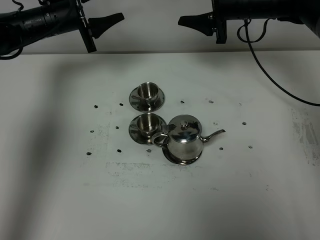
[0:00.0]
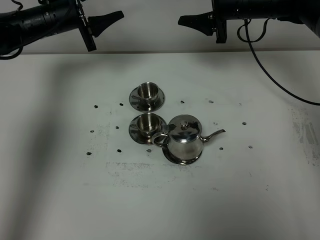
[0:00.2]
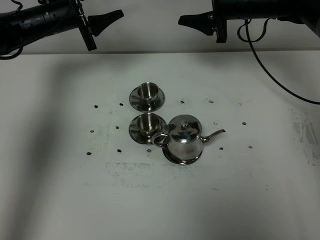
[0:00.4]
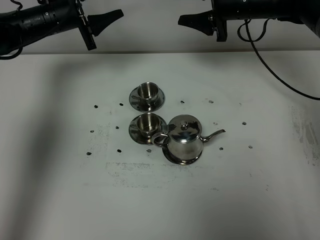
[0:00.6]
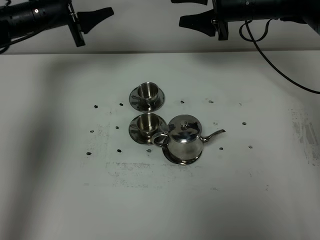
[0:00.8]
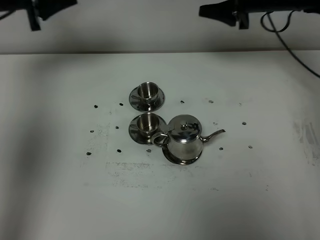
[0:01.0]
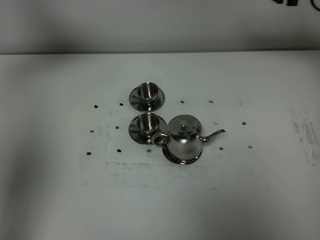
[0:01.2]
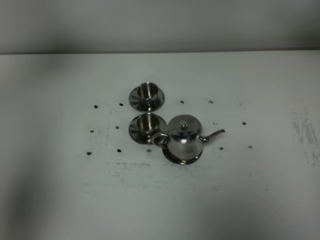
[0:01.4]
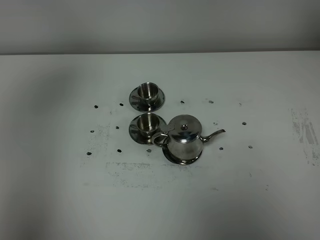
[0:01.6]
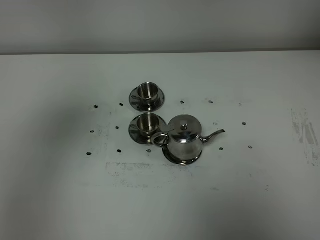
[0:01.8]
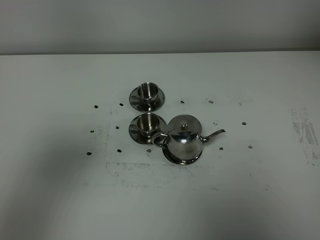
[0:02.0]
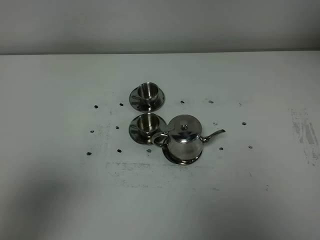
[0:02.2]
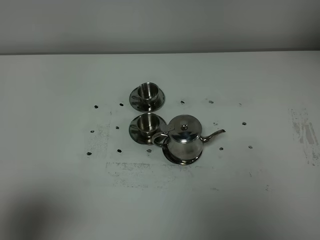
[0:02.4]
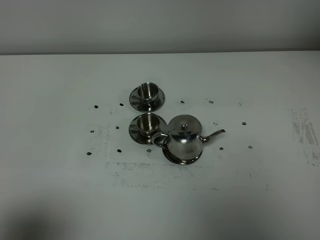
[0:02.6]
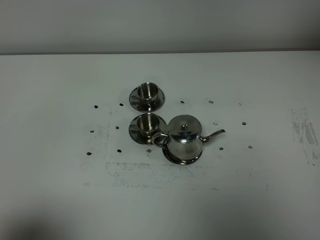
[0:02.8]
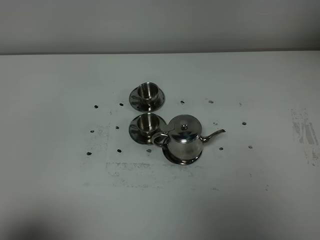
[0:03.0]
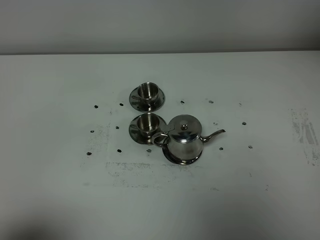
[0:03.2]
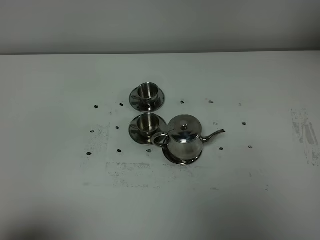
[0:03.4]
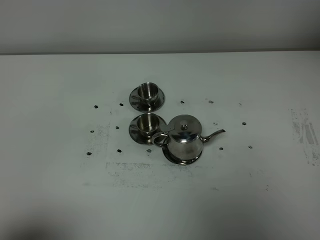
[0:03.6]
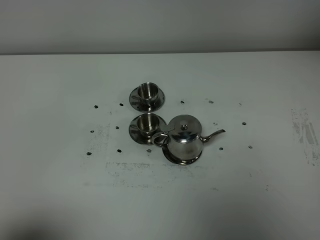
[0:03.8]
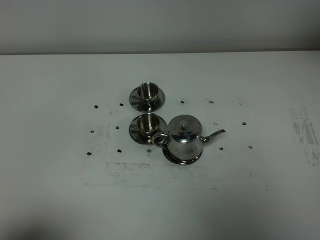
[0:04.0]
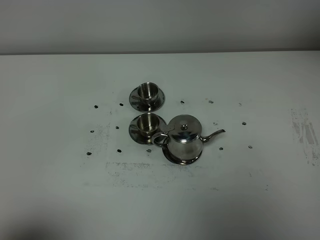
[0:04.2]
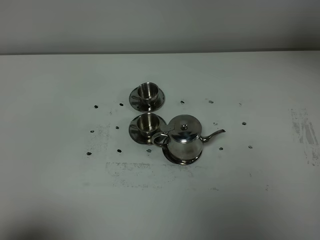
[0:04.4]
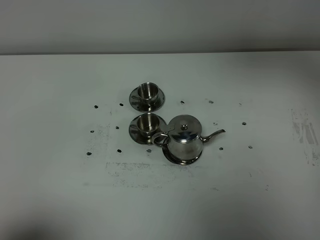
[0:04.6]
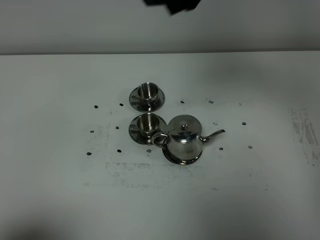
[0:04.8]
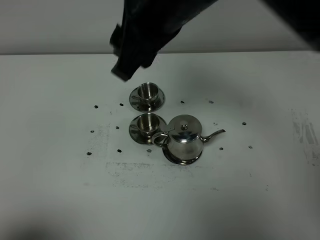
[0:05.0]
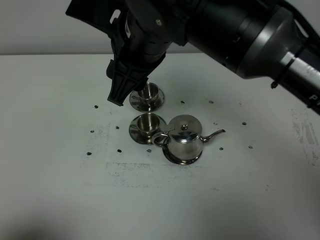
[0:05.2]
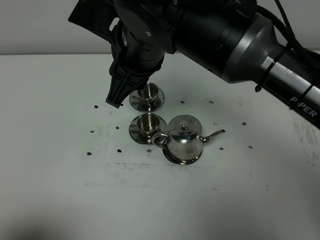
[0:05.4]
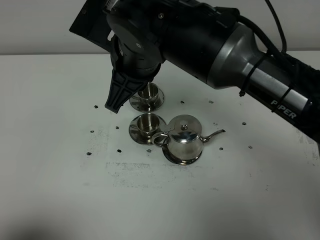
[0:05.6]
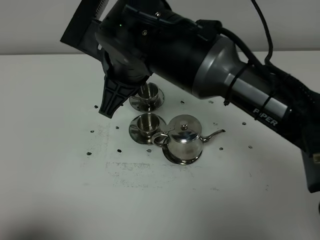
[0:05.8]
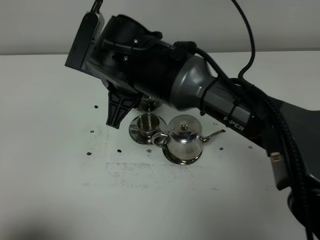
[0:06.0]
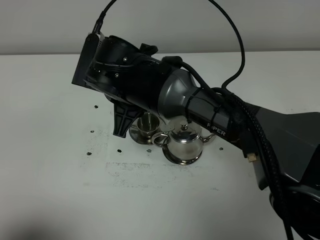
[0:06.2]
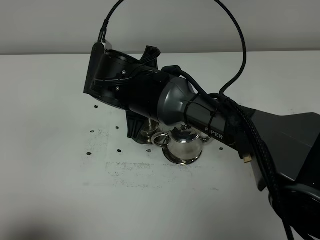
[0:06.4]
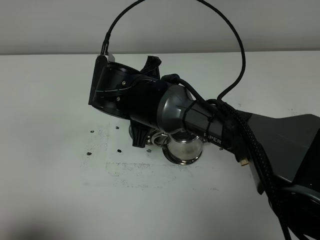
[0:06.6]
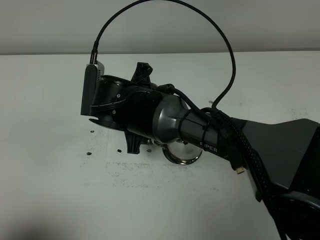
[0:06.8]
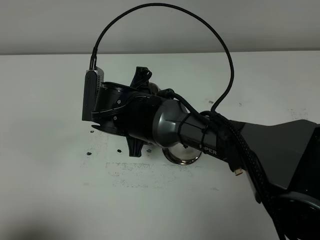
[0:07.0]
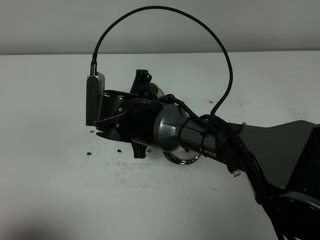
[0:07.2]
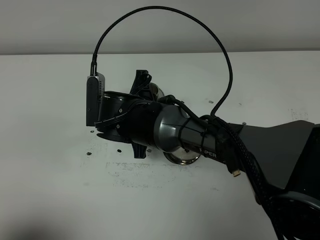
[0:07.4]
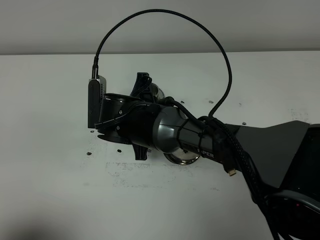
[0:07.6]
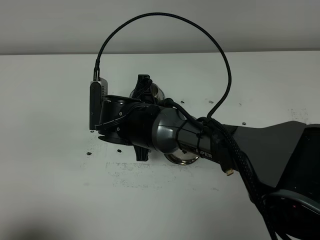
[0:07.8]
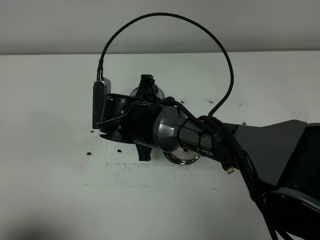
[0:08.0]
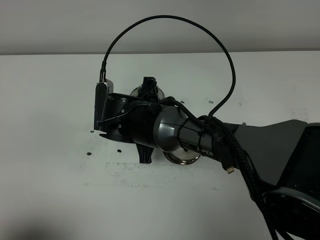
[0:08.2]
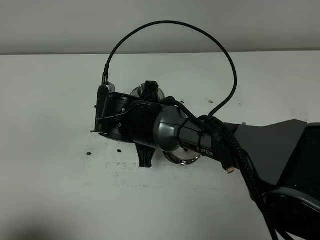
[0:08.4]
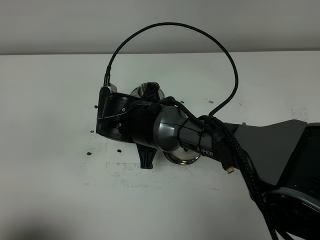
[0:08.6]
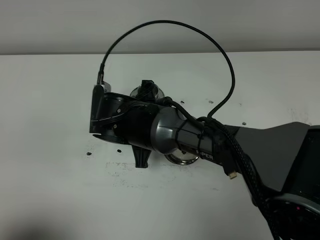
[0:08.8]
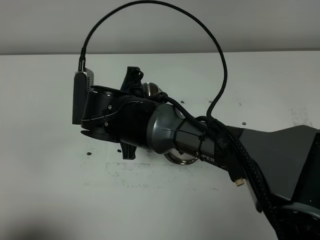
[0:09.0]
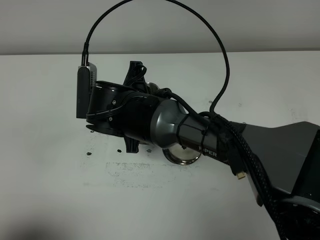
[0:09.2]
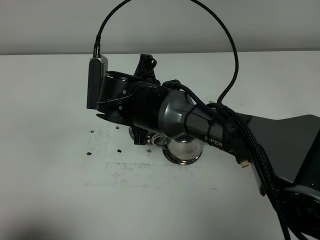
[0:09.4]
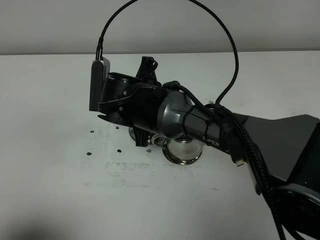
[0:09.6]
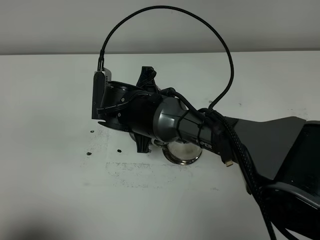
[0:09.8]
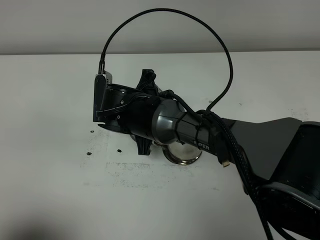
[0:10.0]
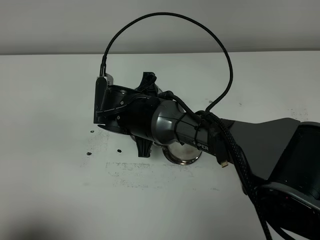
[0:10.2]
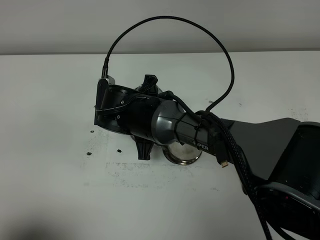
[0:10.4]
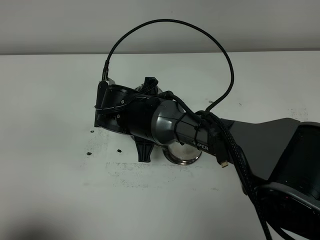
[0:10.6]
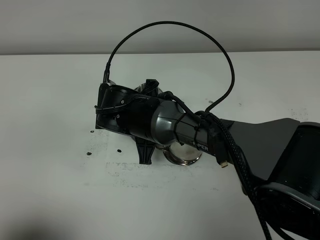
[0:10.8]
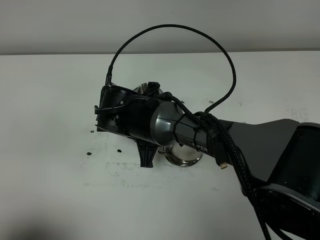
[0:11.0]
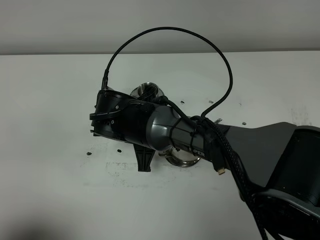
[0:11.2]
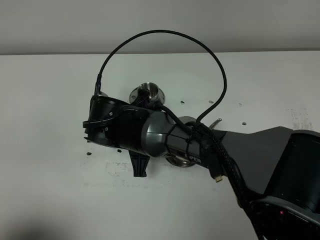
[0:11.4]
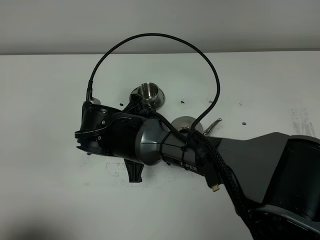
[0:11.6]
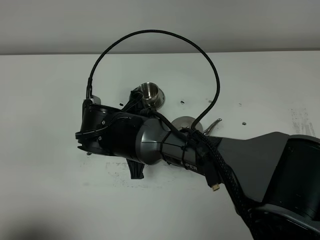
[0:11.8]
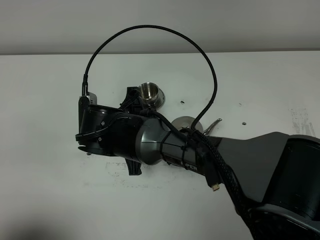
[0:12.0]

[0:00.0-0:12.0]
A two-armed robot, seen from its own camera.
Task of the whole recording: grasp the stainless steel teapot and pour the tea into the two stainless steel teacups one by one, put the stainless steel teapot back in its original place.
0:00.0 to 0:01.6: The right gripper goes approximately 30 cm upward, to the right and backward, while the left gripper shifts about 40 cm backward and upward.
0:01.6 to 0:03.0: The left gripper shifts roughly 30 cm backward and downward.
0:04.4 to 0:06.0: The right gripper moves to the left and downward, approximately 40 cm, and closes.
0:06.0 to 0:07.6: The right gripper goes some 10 cm downward.
0:07.6 to 0:09.0: The grippers move only a little.
0:09.0 to 0:10.4: The right gripper changes place by approximately 5 cm.

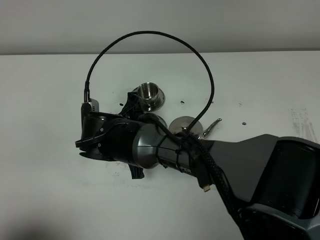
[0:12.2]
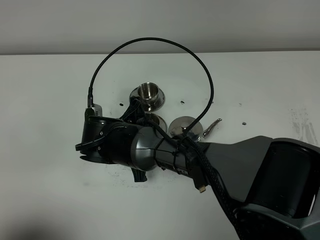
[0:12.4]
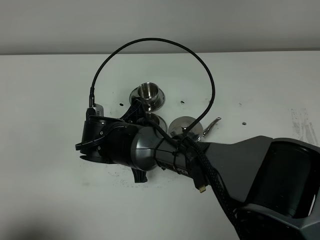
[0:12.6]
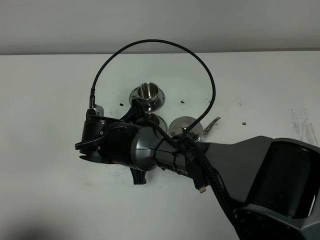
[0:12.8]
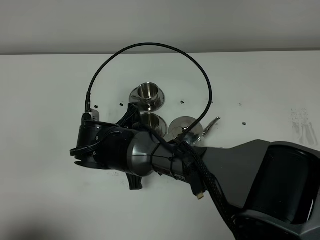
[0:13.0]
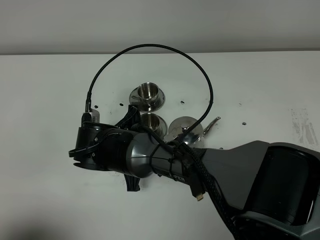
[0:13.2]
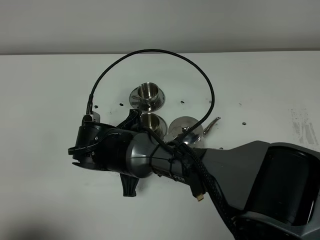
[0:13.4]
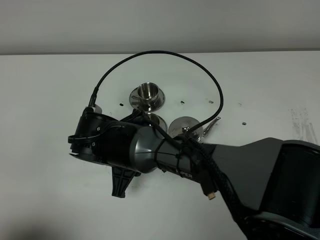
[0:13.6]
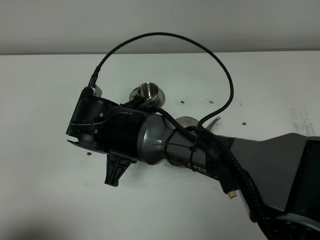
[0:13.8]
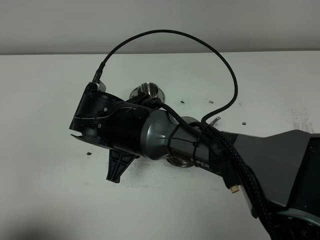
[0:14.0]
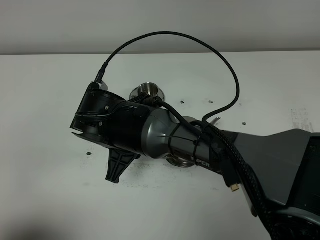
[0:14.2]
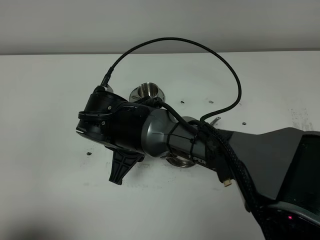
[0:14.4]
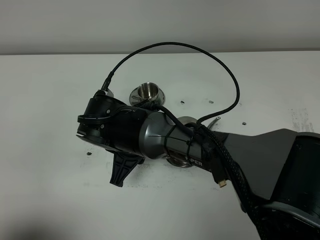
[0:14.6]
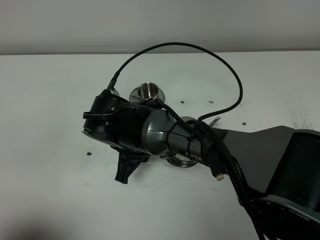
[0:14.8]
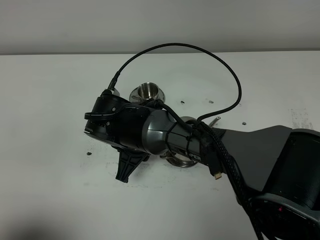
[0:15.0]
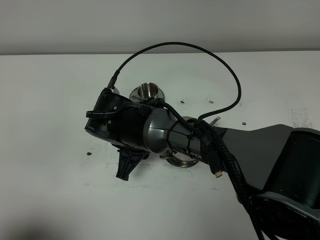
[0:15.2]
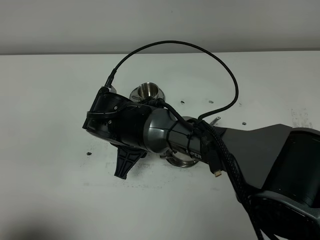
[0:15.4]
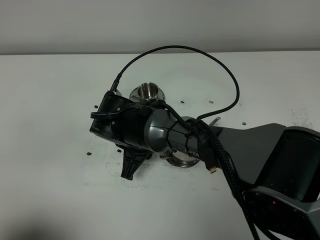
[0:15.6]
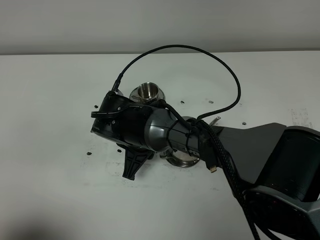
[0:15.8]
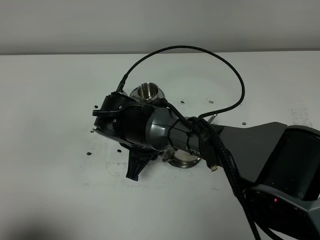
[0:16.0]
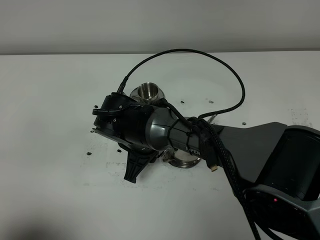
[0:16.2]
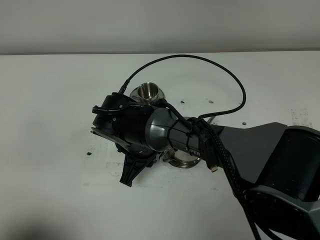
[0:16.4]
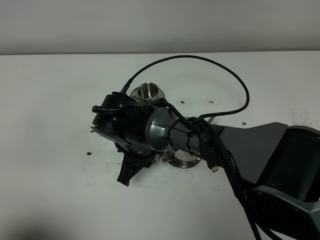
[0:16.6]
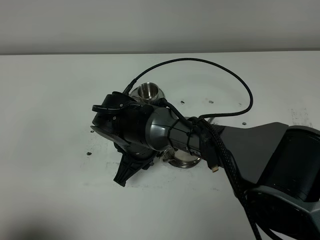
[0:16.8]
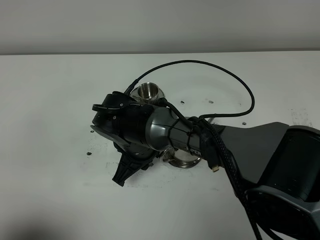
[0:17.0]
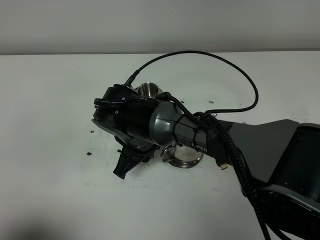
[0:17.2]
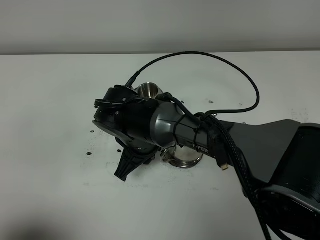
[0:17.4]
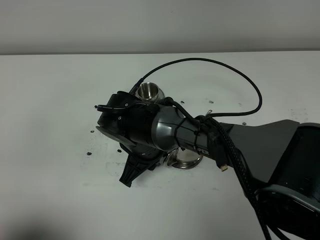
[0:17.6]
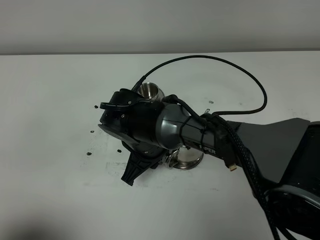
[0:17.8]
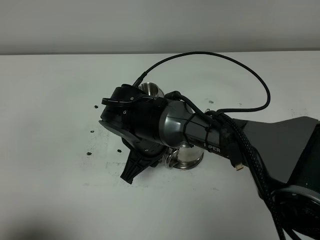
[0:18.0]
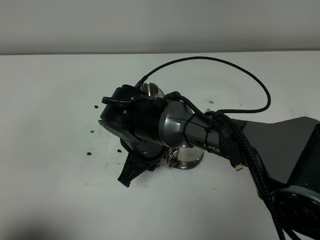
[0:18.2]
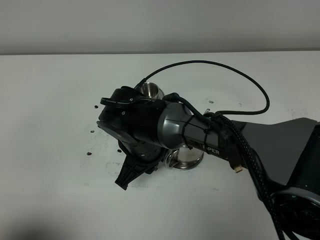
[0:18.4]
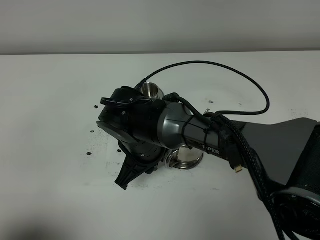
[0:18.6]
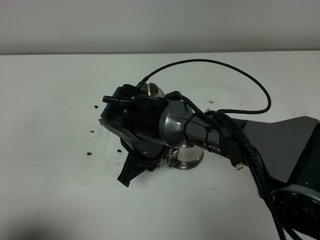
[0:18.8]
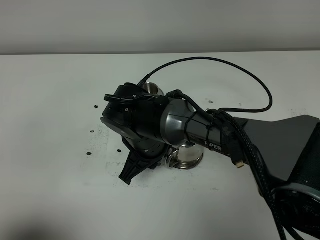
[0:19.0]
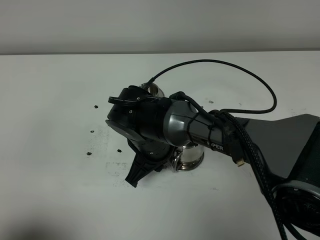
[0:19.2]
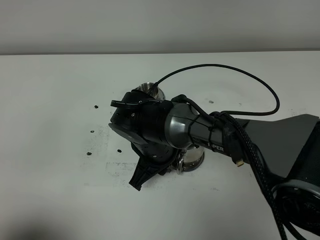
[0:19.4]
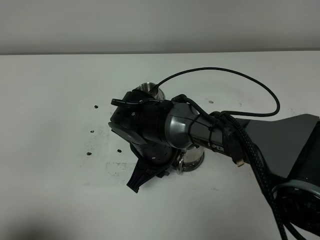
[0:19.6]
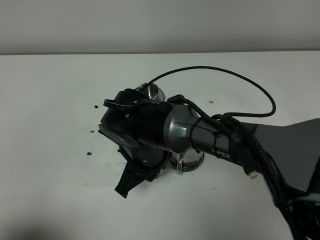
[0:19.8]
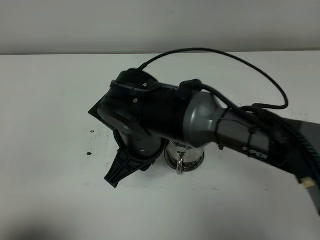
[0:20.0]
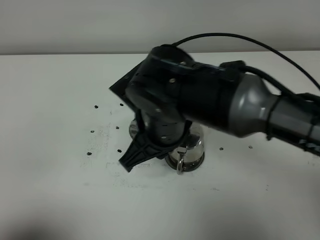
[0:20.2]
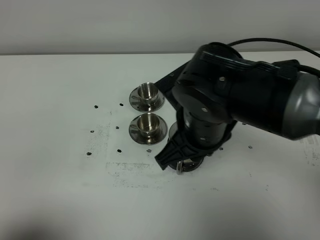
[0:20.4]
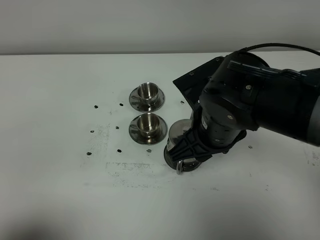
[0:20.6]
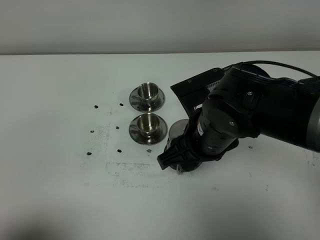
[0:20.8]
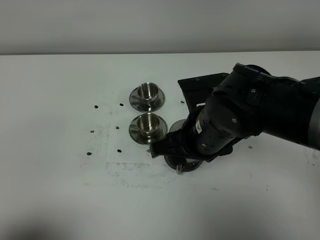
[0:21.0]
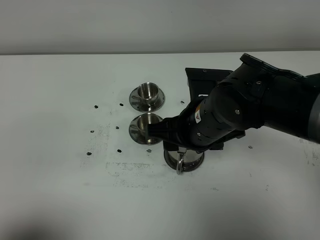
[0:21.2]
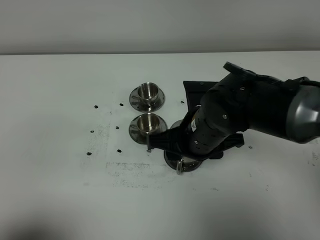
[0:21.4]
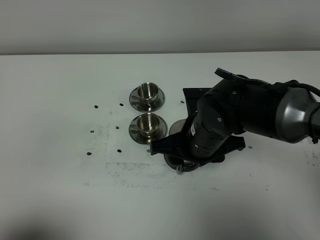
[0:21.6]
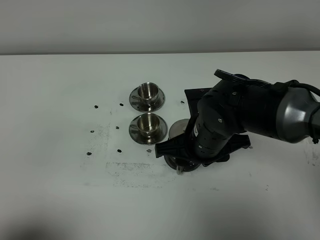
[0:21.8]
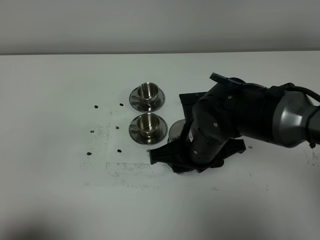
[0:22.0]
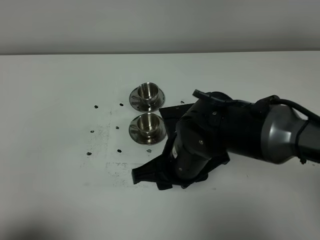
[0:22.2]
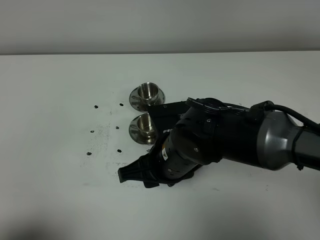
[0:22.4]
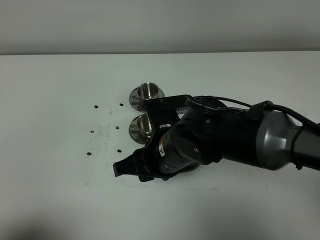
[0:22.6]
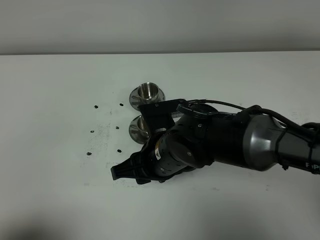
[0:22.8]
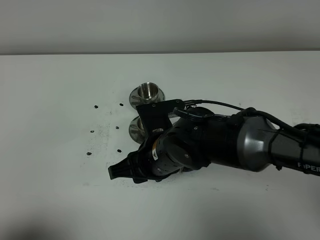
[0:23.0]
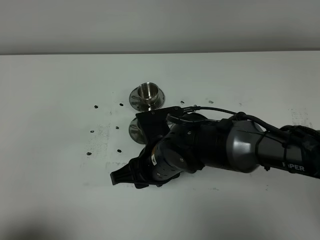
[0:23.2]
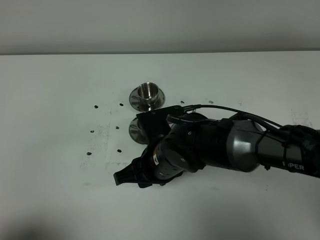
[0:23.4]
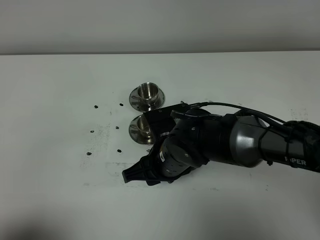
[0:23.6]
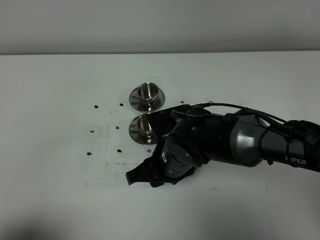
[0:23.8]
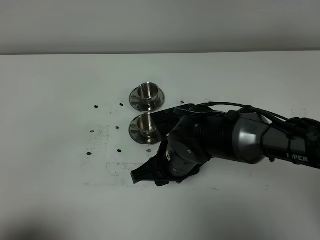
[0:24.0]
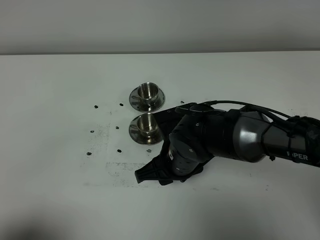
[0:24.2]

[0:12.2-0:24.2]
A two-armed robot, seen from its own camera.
Task of the whole recording: grasp the stainless steel teapot and pour the tea into the two stainless steel teacups one by one, put the stainless steel teapot back in its original place.
0:12.2 to 0:13.8: The right gripper shifts by approximately 5 cm.
0:13.8 to 0:15.2: The grippers make only small movements.
0:15.2 to 0:19.8: There are only small adjustments of the grippers.
0:19.8 to 0:21.2: The right gripper shifts approximately 10 cm to the right and upward, and opens.
0:21.2 to 0:22.6: The right gripper travels to the left by some 5 cm.
0:22.6 to 0:24.2: The right gripper shifts by some 5 cm.
